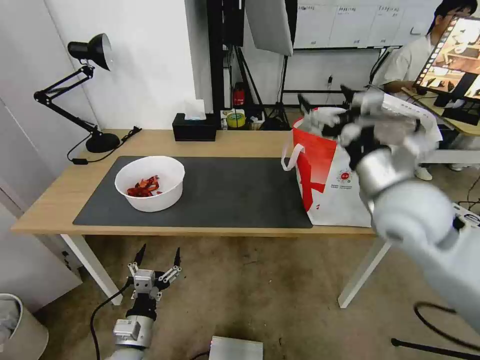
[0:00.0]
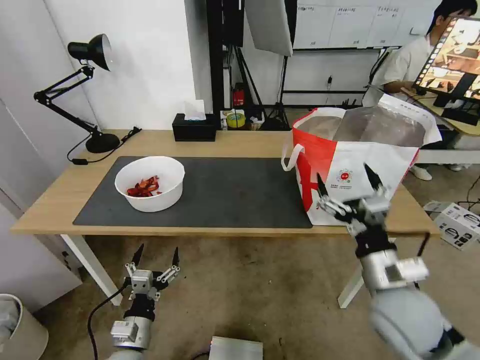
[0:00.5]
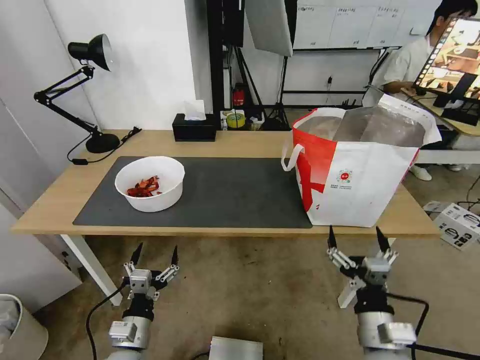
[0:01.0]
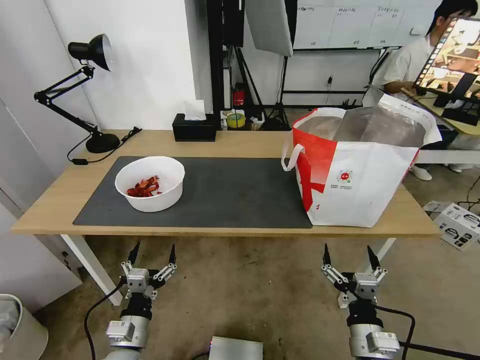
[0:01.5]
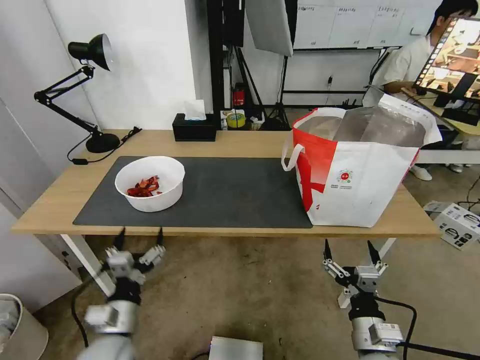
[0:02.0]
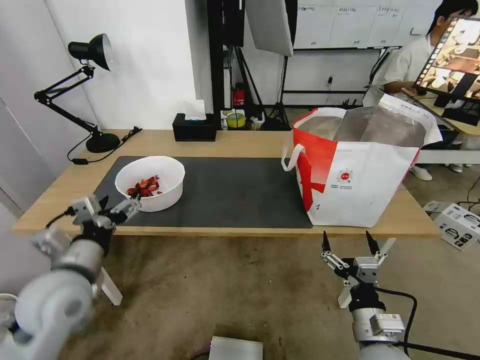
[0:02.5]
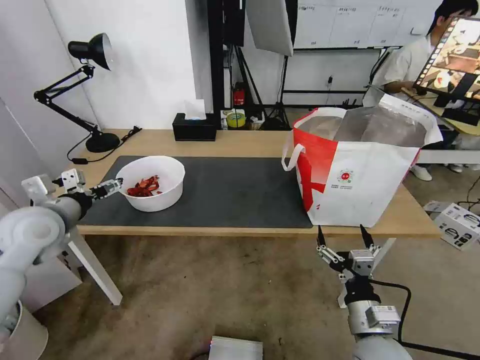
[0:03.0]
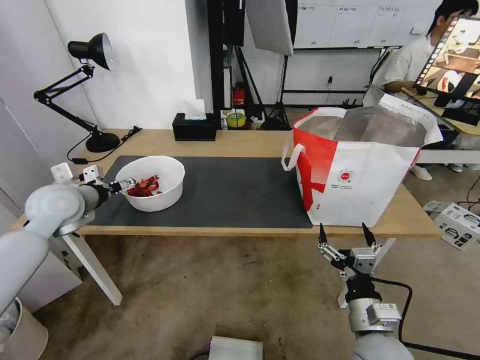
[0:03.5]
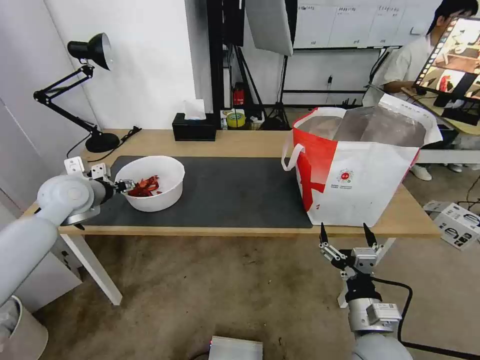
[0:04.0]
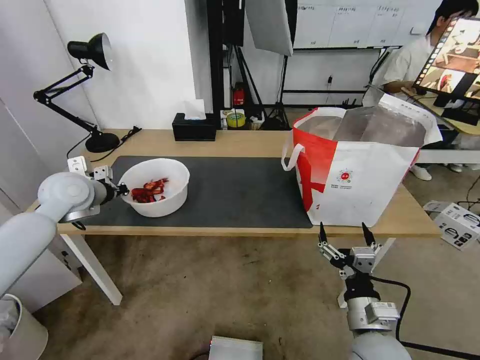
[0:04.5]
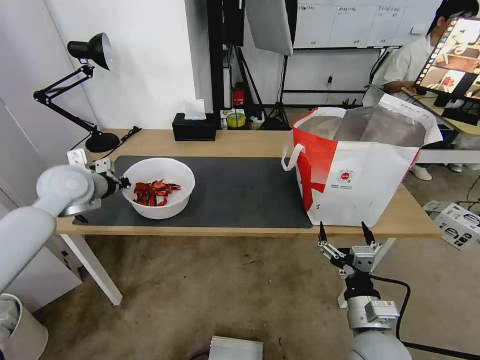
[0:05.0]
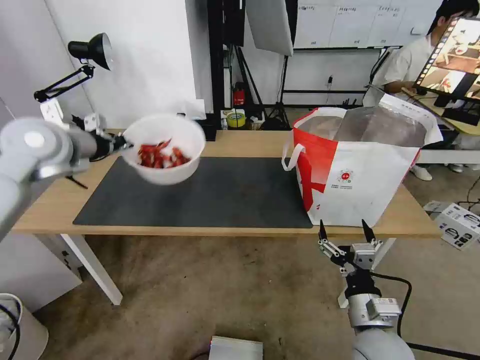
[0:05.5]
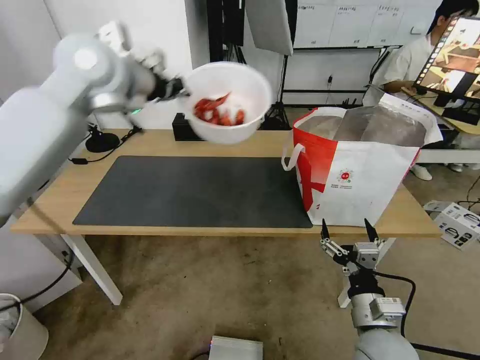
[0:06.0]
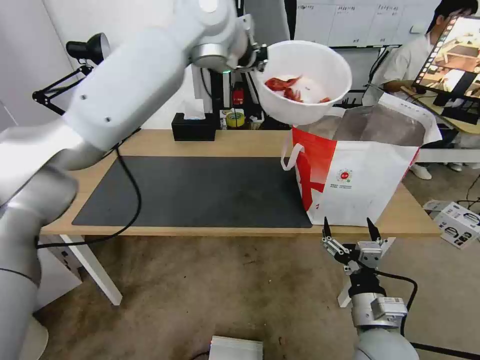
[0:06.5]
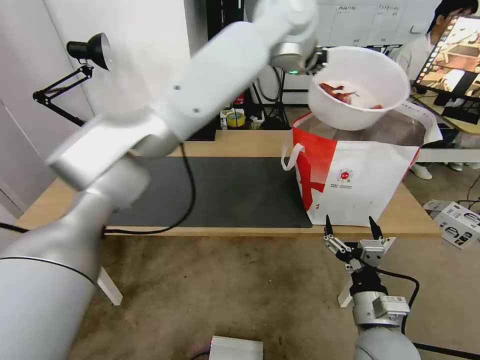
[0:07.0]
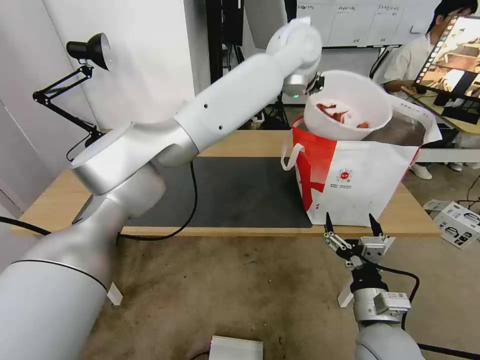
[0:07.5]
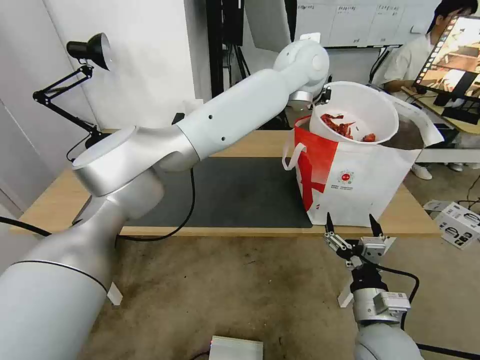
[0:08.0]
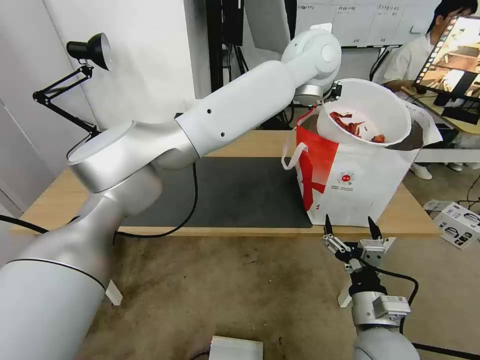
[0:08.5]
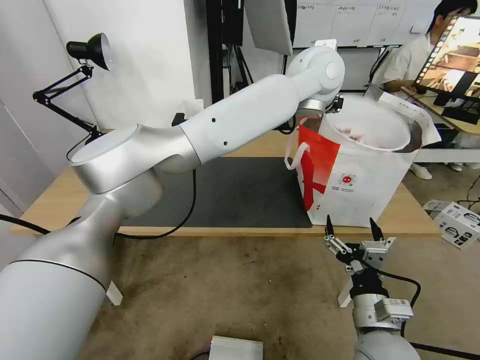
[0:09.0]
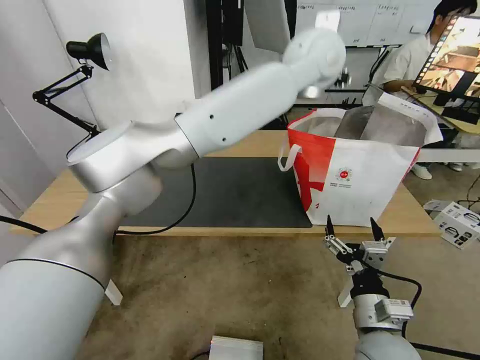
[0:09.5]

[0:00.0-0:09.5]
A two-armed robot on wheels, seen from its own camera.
Task of the whole recording: Pick up the trash from the table and place it into the takeout bag.
0:00.0 to 0:02.0: The left gripper shifts roughly 5 cm upward; the right gripper heads downward and backward, covering roughly 30 cm.
0:02.0 to 0:04.0: The left gripper travels forward, upward and to the left by some 35 cm, and closes up.
0:04.0 to 0:05.5: The left gripper heads upward, covering approximately 15 cm, and closes up.
0:05.5 to 0:07.5: The left gripper travels to the right by approximately 40 cm.
0:07.5 to 0:09.5: The left gripper changes place by some 5 cm, and opens.

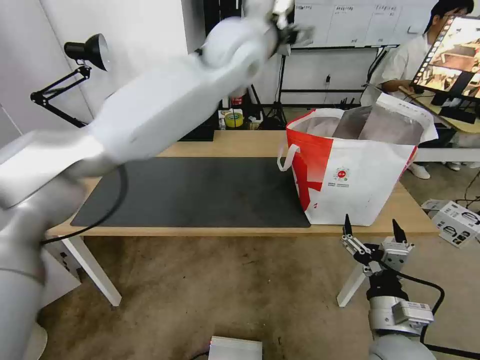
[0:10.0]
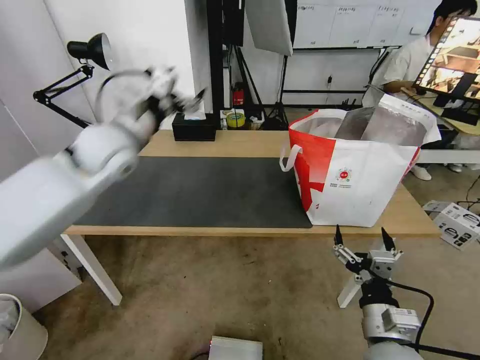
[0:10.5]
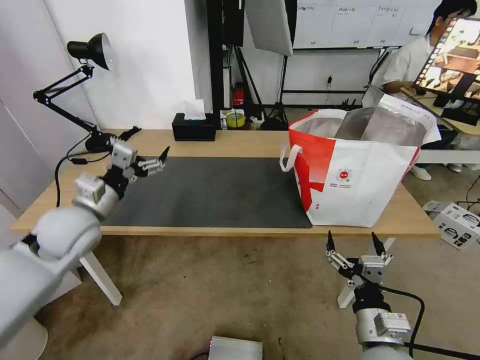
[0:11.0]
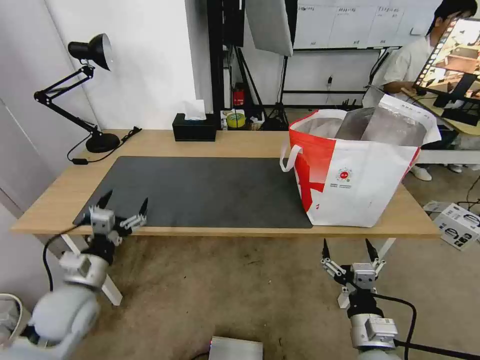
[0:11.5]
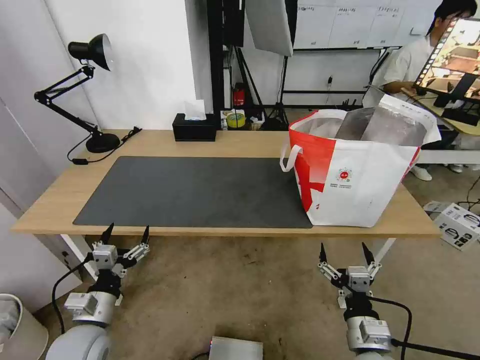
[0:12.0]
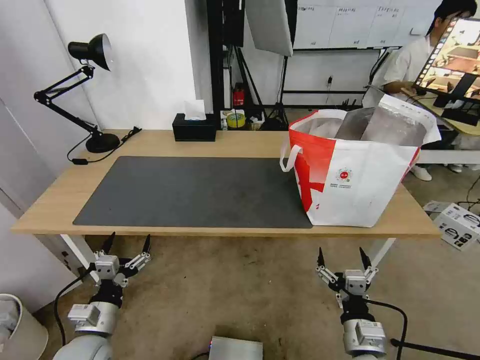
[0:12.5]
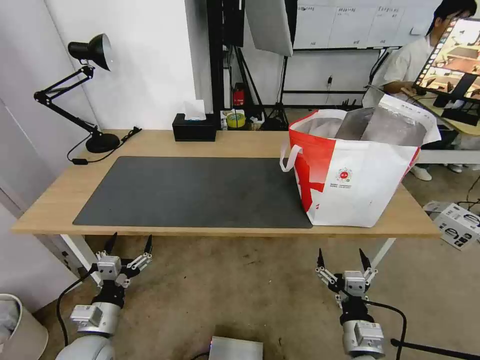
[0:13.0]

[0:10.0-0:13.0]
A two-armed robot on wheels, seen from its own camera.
Task of the whole recording: Pick up the trash from the table and place it into the takeout bag.
0:10.0 to 0:11.5: The left gripper travels downward, to the left and backward by roughly 60 cm. The right gripper is displaced downward by approximately 5 cm.
0:11.5 to 0:13.0: The left gripper moves downward and backward, approximately 10 cm.
